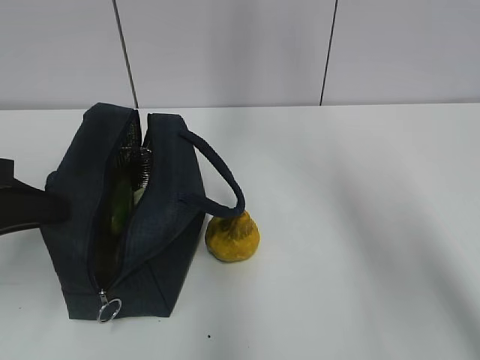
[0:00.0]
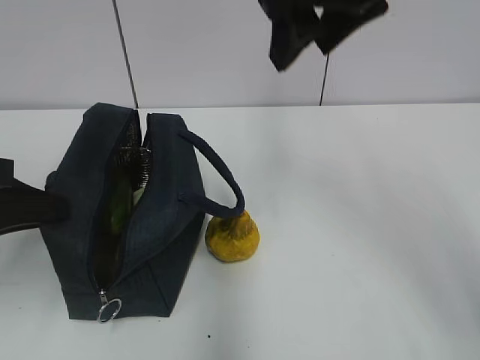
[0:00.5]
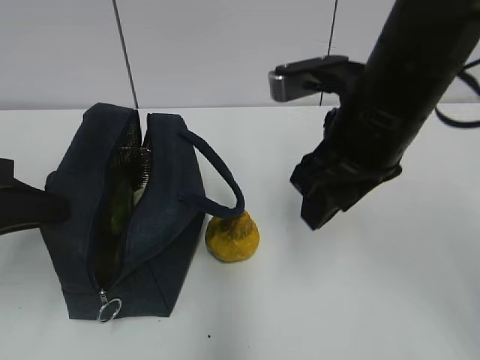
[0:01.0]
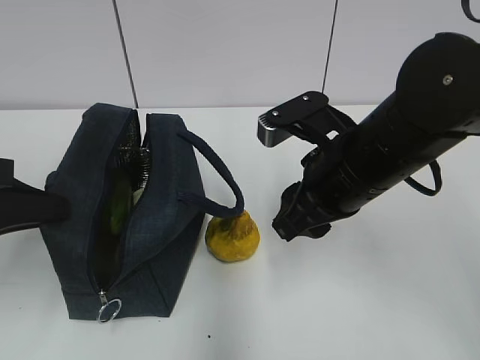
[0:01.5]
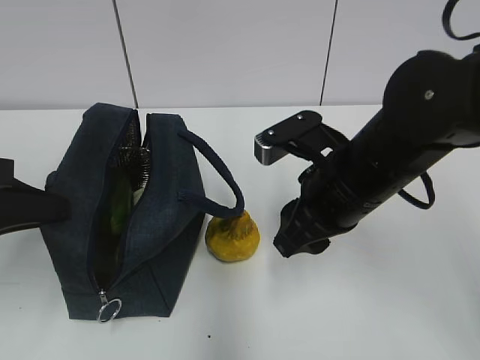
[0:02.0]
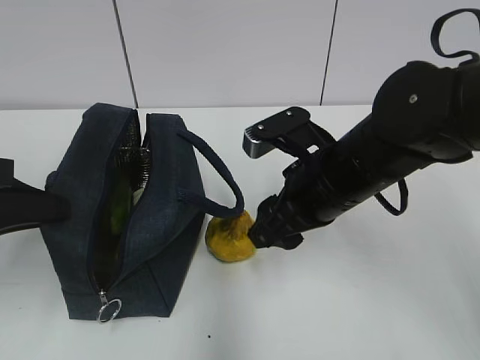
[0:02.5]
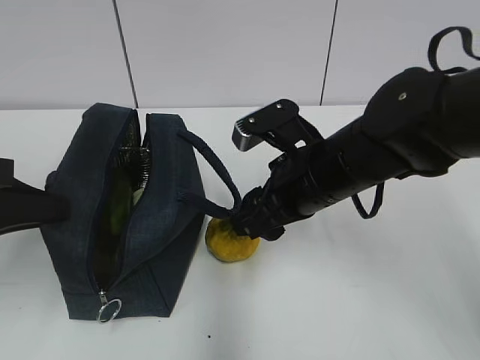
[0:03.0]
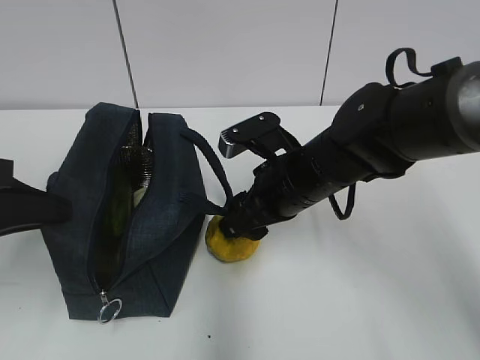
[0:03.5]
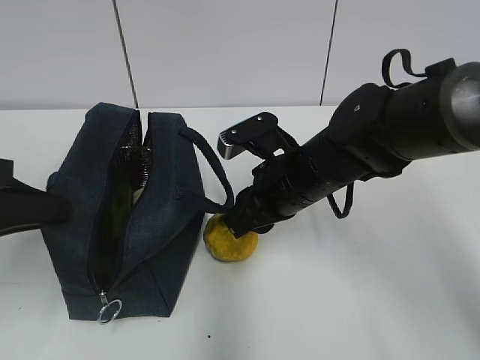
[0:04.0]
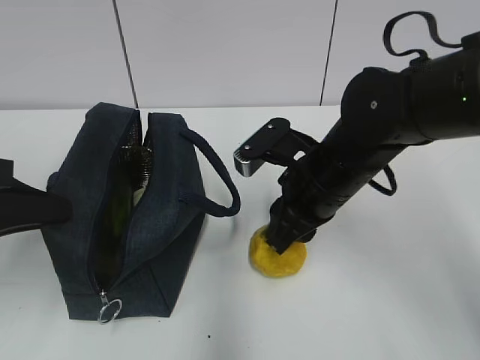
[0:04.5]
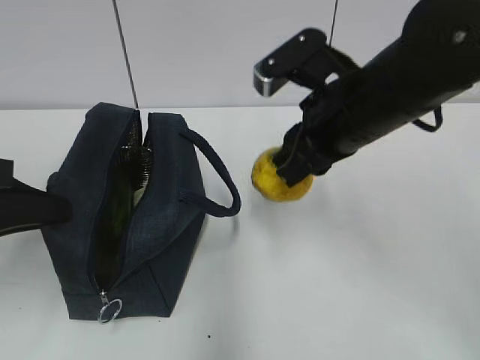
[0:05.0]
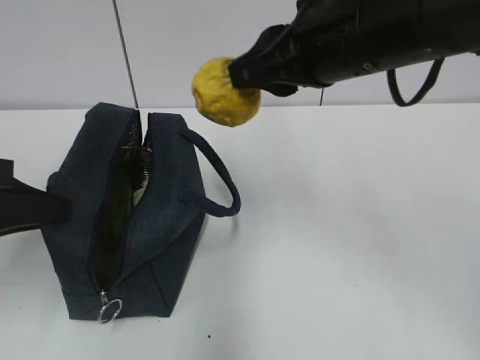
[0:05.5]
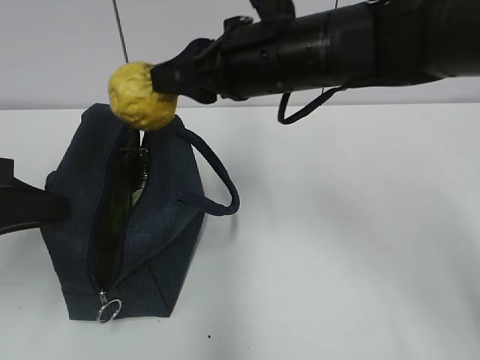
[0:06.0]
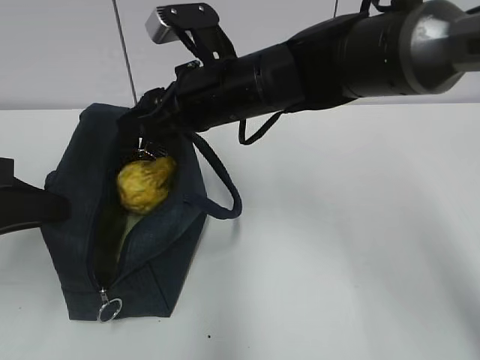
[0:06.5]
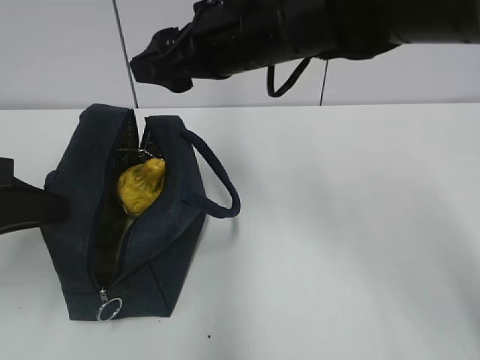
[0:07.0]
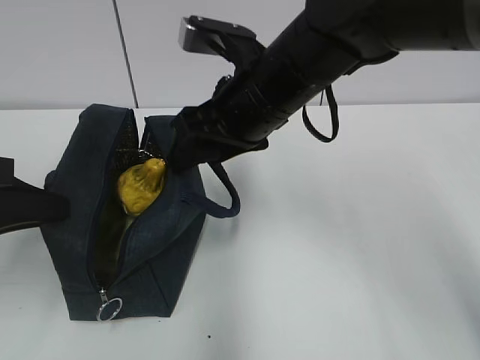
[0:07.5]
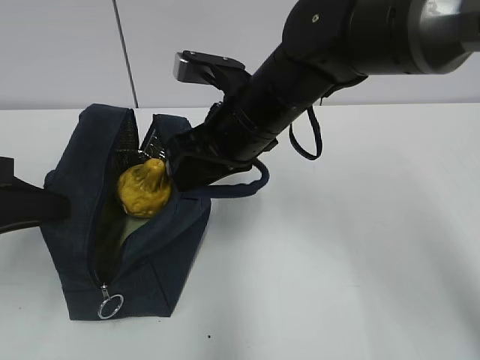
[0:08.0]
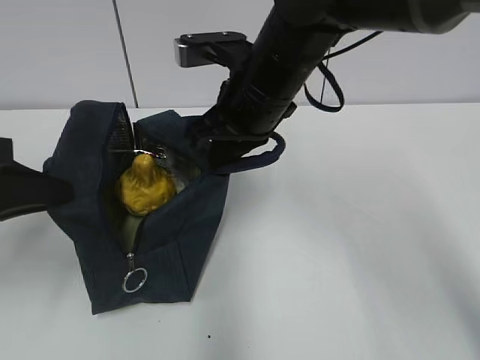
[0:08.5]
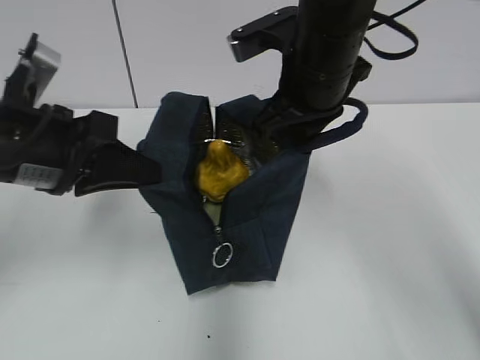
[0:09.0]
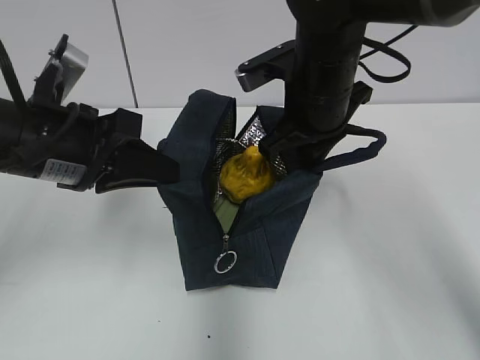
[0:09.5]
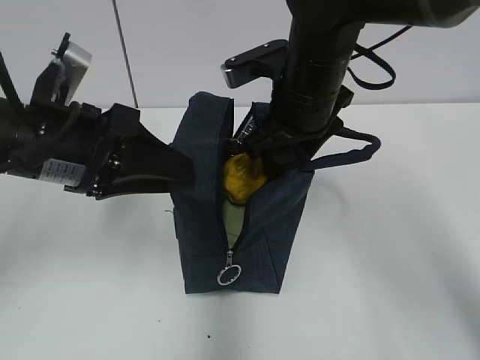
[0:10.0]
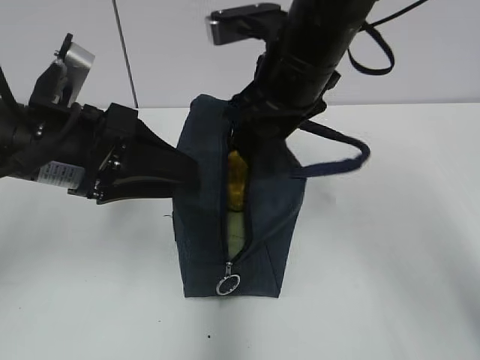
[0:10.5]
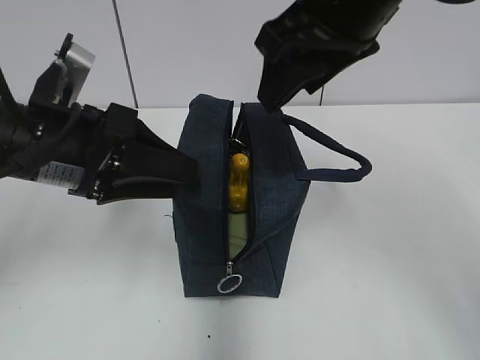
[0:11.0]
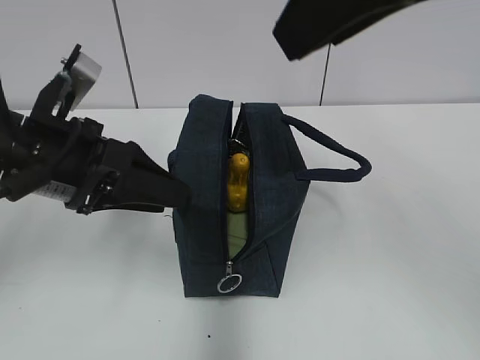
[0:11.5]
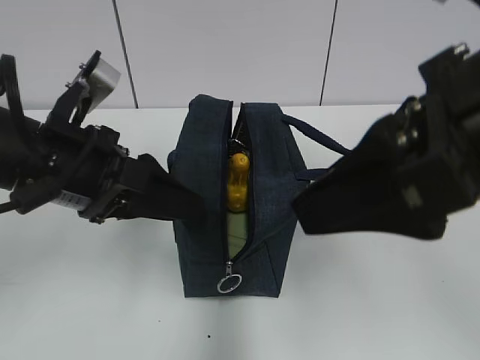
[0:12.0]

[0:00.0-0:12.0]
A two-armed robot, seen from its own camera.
Step, 0.0 to 4.0 s: Grab the pear with your right hand.
Step, 7.0 to 10.0 s: Move the lunch bag to the right.
0.0 to 2.0 s: The right gripper heads downward and backward, covering some 25 cm.
2.0 to 4.0 s: The right gripper shifts by some 5 cm.
4.0 to 6.0 s: The right gripper moves upward, roughly 15 cm.
6.0 to 8.0 s: The right gripper swings up and down, about 5 cm each way, with 2 reversals, and opens, then closes again.
8.0 to 10.0 s: The left gripper goes approximately 10 cm to the right and forward, and opens up; the right gripper ends up roughly 5 cm from where it was, and opens up.
10.0 to 12.0 s: The right gripper heads backward and upward, covering roughly 20 cm.

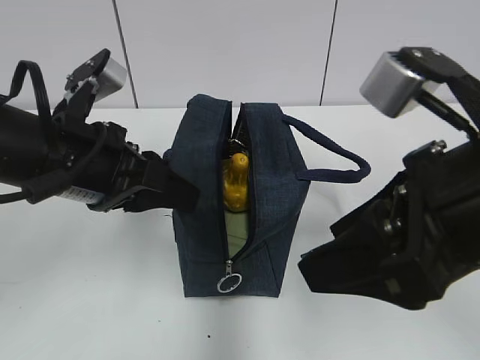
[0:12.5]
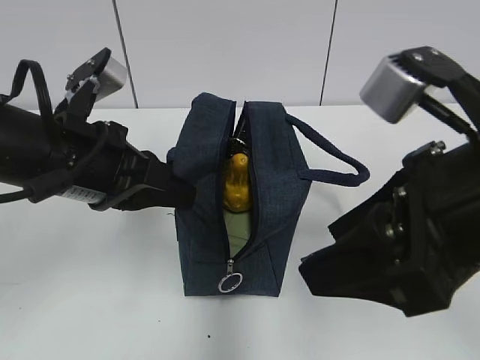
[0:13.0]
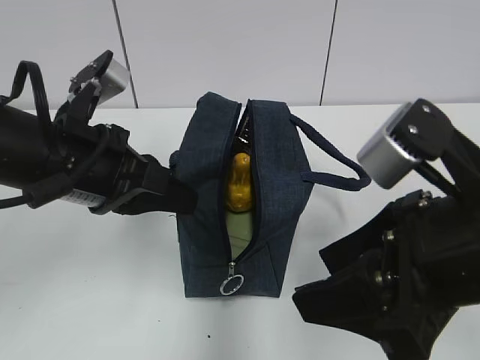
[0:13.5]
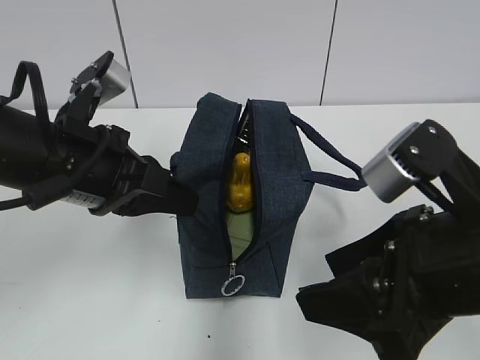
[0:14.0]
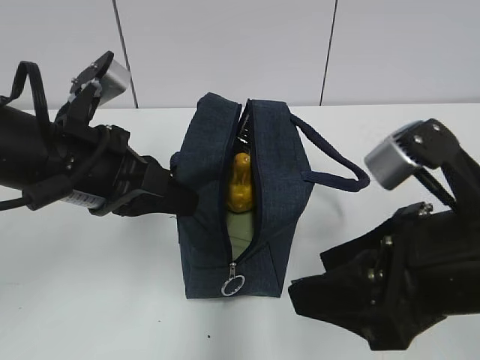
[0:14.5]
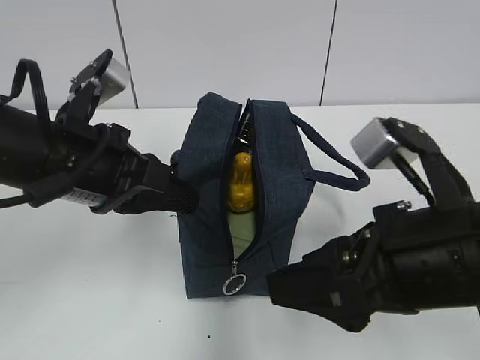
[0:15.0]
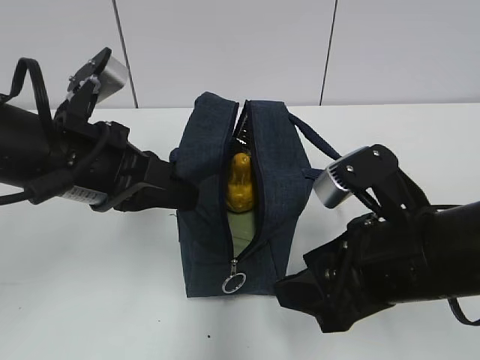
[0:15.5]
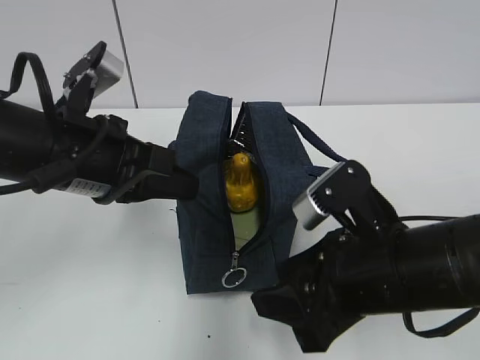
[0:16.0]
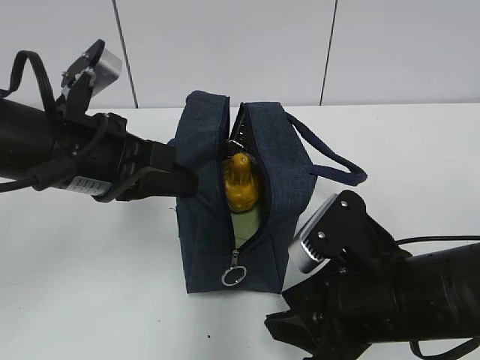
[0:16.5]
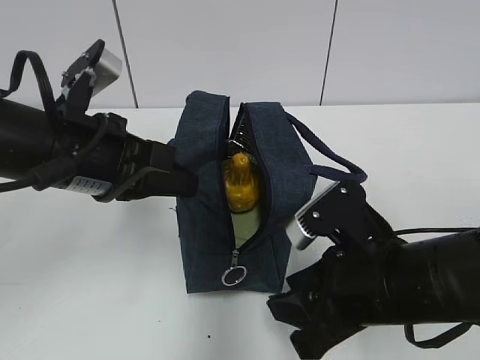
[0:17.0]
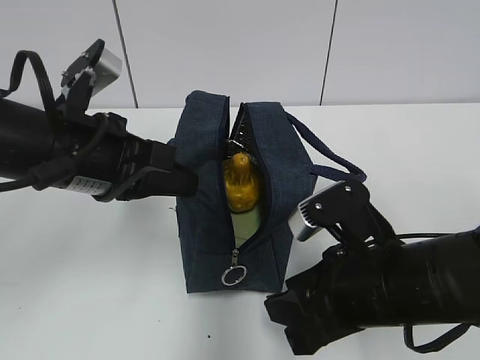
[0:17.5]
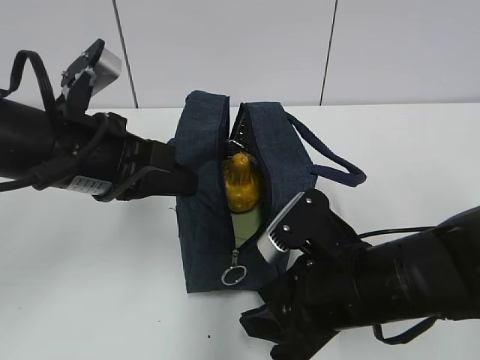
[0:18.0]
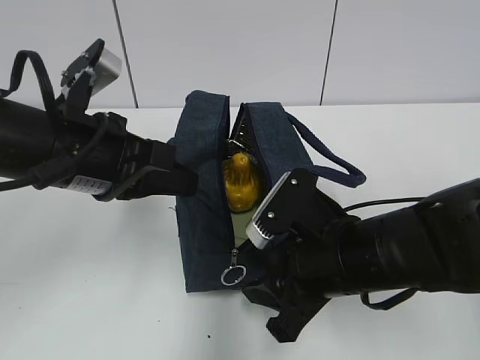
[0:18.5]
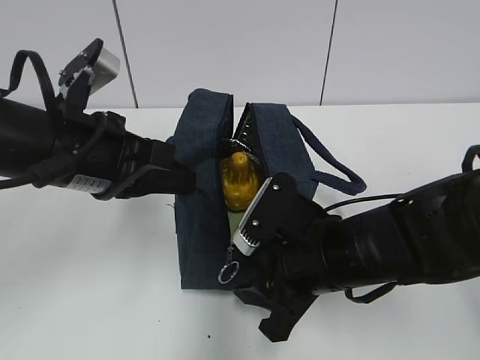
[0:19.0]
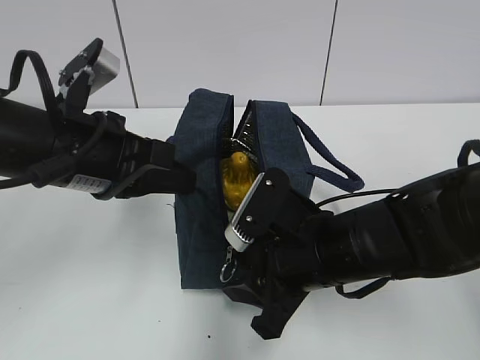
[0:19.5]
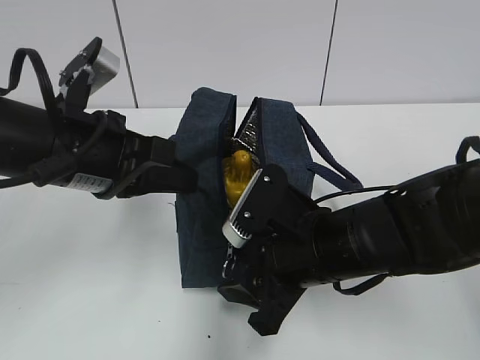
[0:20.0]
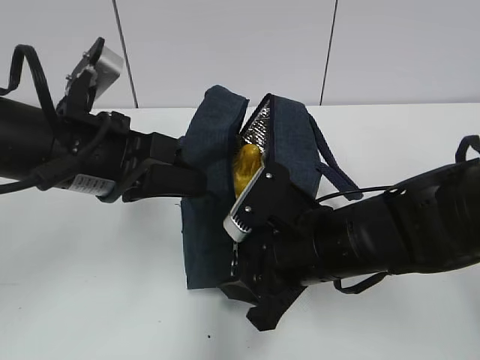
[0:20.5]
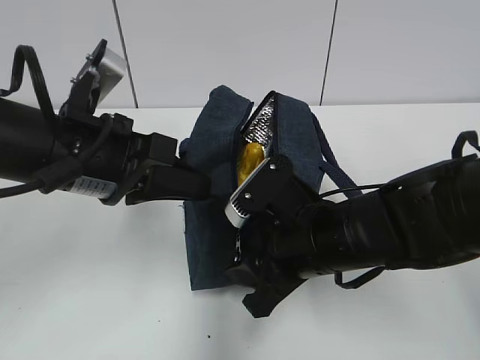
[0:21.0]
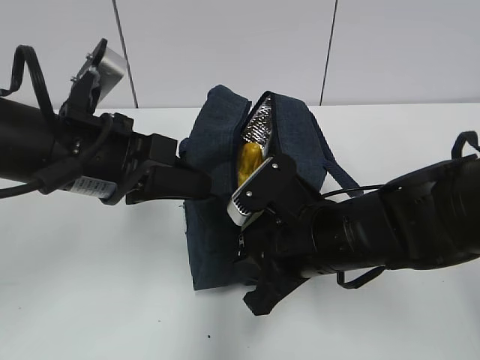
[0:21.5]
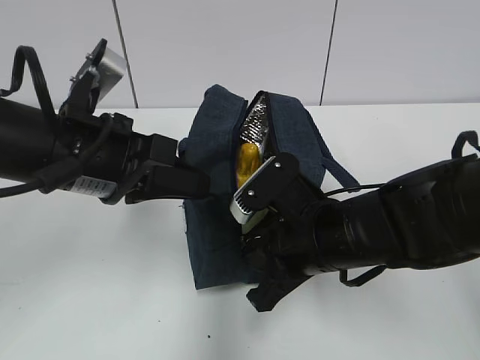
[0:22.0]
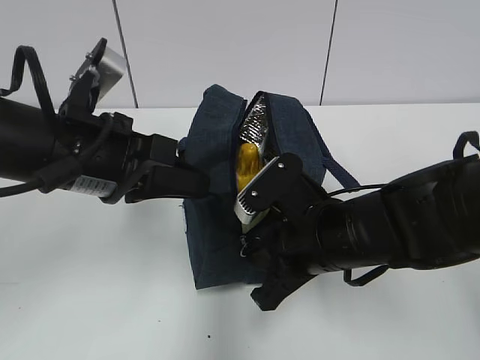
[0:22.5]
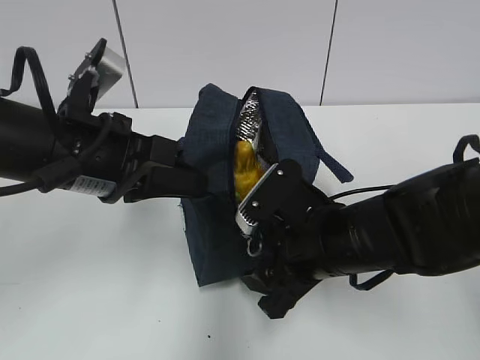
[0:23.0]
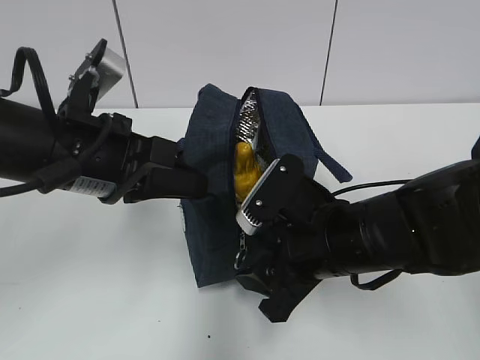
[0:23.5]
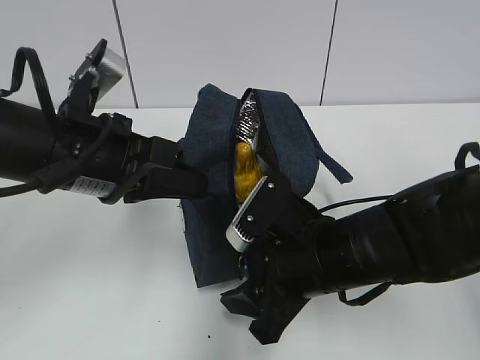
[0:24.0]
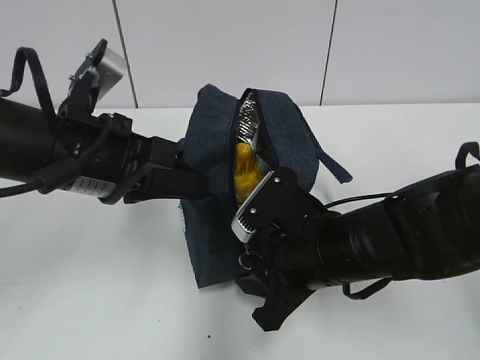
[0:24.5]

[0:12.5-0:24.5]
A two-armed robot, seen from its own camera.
12.5 to 14.5 s: The left gripper closes up. The right gripper travels downward by roughly 5 cm.
14.5 to 16.5 s: The right gripper shifts roughly 10 cm downward.
16.5 to 18.5 s: The grippers move only a little.
18.5 to 20.5 s: The grippers stay close to where they were, moving slightly.
20.5 to 22.5 s: The right gripper closes up.
22.5 to 24.5 s: The right gripper opens.

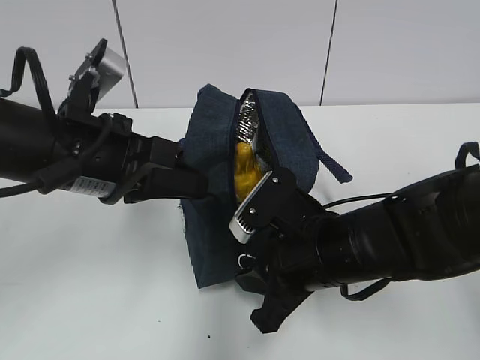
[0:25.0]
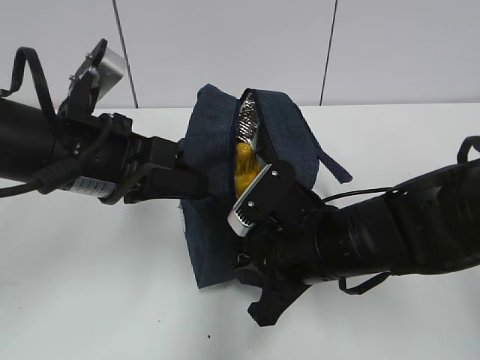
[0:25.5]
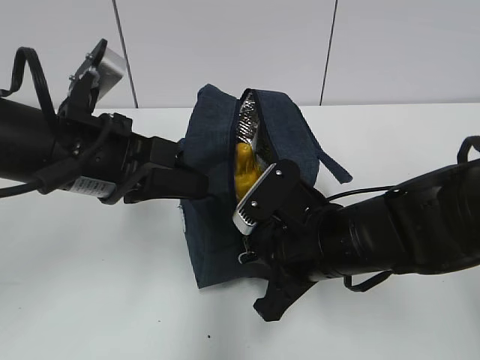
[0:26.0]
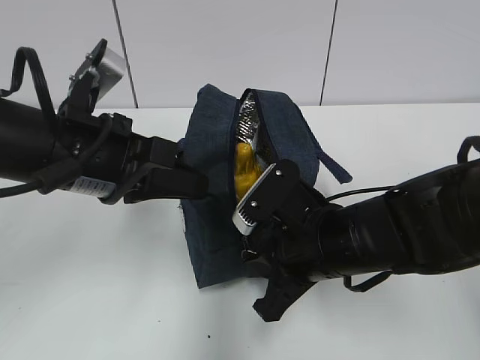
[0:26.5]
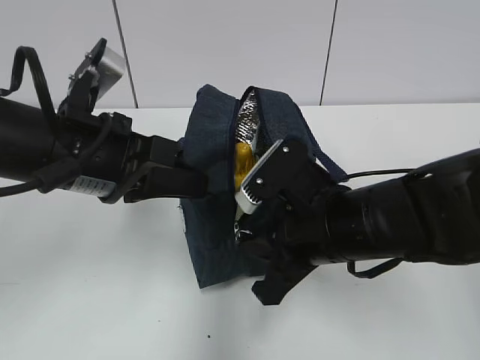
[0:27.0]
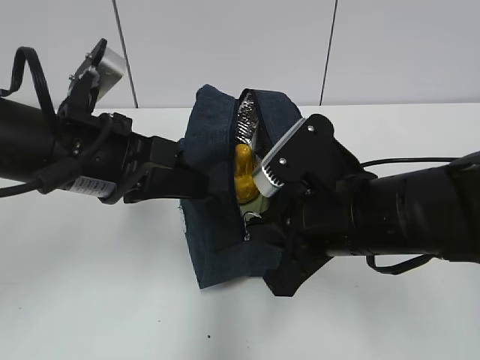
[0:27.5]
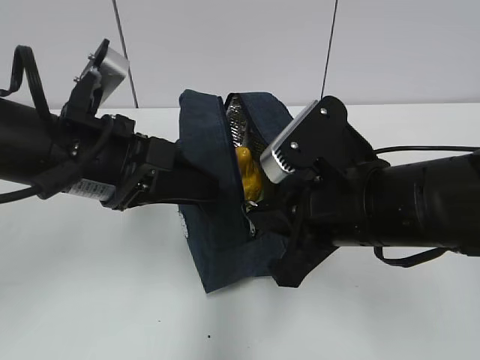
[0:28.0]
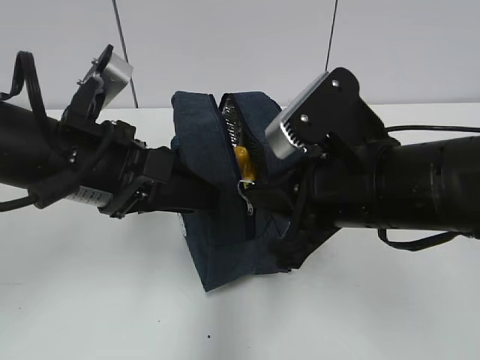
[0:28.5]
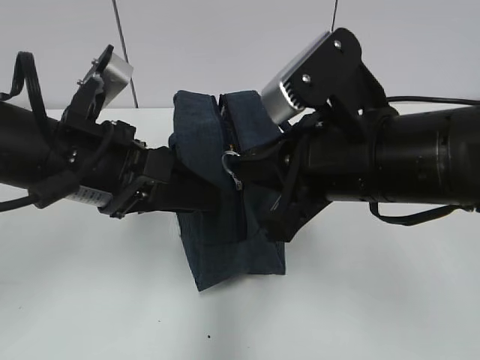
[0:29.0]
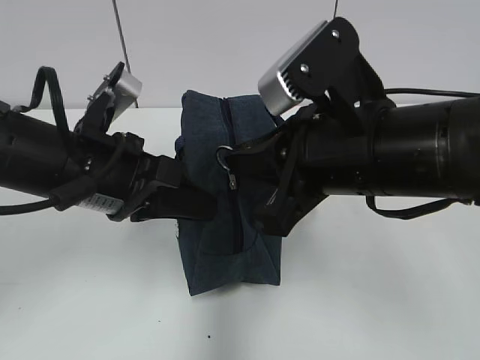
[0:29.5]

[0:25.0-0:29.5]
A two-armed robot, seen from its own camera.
25.0 to 27.0 s: The grippers stay close to where they were, moving slightly.
27.0 to 29.5 s: The right gripper is displaced upward by roughly 10 cm; the left gripper opens and closes again.
